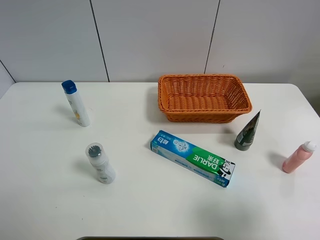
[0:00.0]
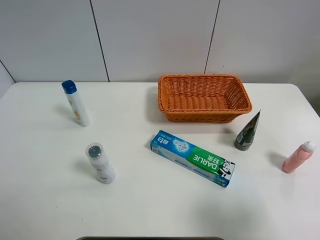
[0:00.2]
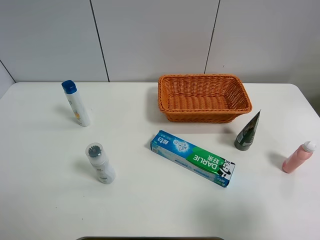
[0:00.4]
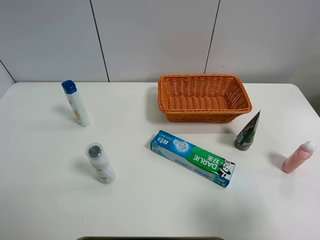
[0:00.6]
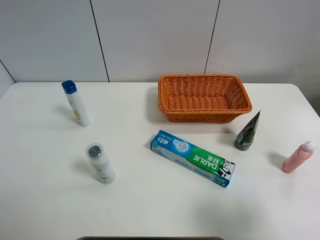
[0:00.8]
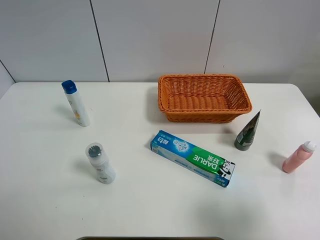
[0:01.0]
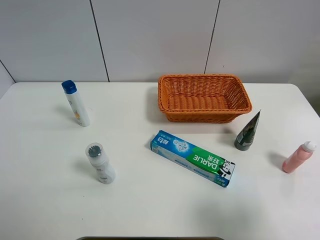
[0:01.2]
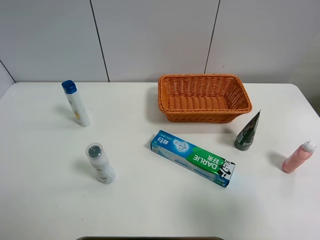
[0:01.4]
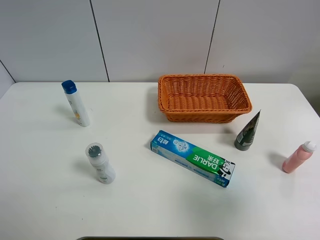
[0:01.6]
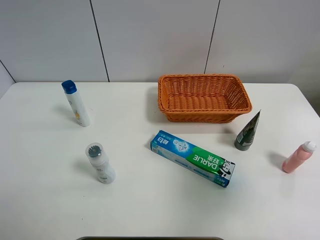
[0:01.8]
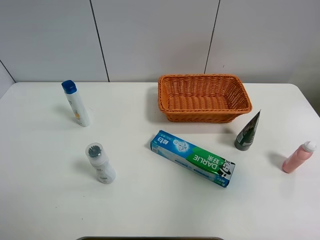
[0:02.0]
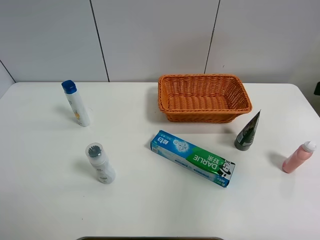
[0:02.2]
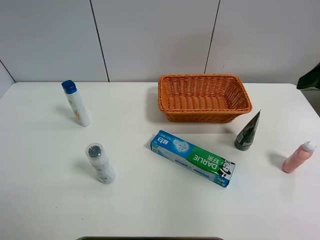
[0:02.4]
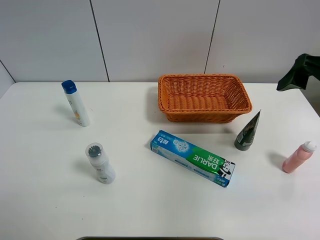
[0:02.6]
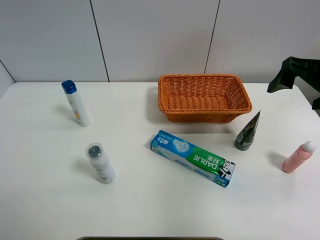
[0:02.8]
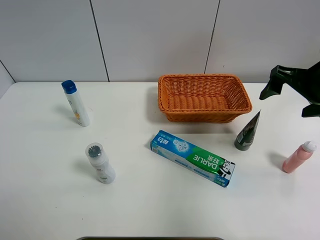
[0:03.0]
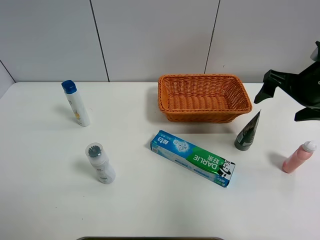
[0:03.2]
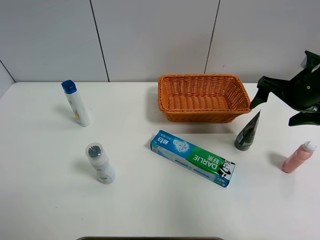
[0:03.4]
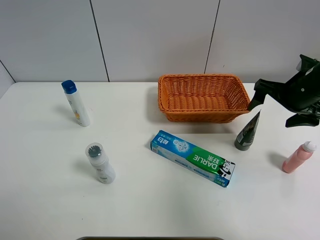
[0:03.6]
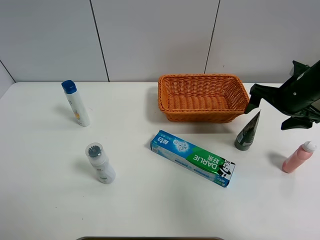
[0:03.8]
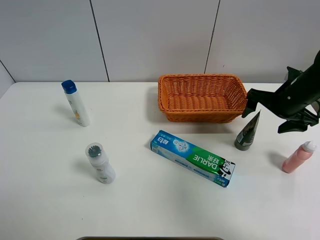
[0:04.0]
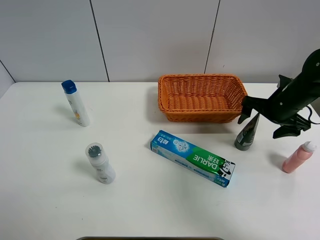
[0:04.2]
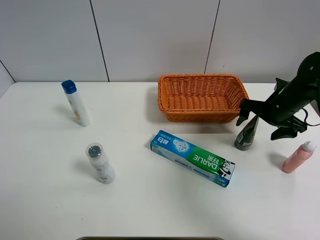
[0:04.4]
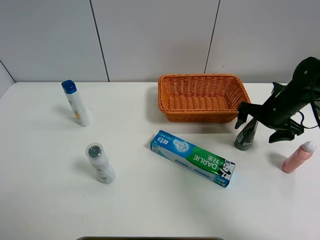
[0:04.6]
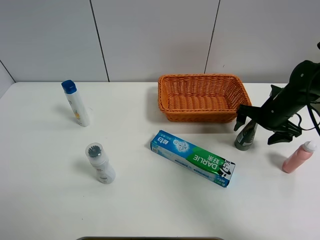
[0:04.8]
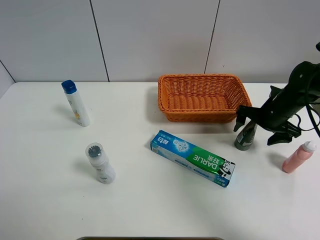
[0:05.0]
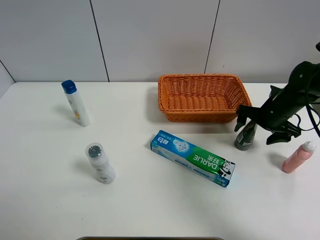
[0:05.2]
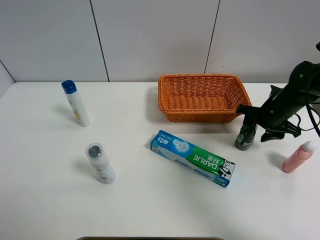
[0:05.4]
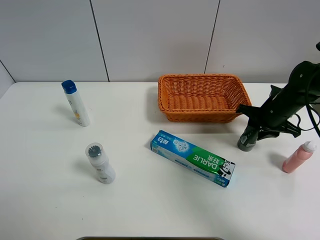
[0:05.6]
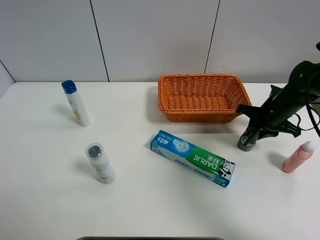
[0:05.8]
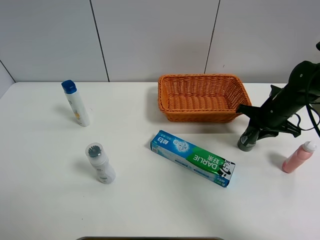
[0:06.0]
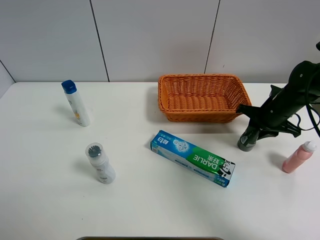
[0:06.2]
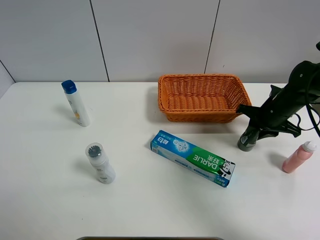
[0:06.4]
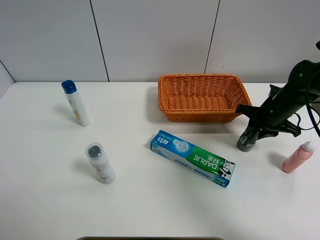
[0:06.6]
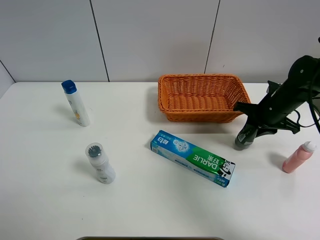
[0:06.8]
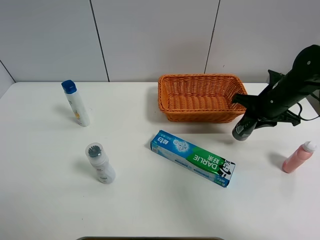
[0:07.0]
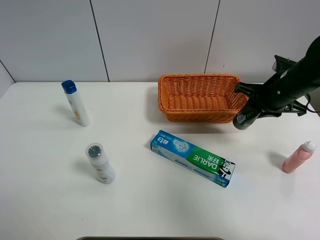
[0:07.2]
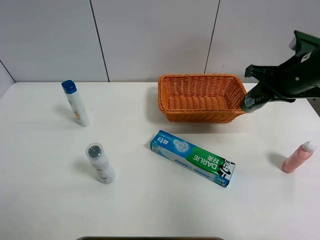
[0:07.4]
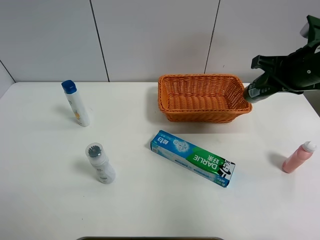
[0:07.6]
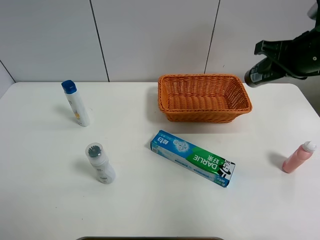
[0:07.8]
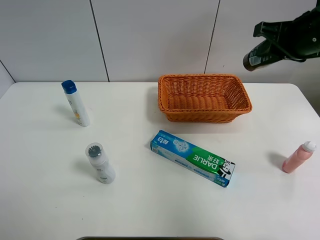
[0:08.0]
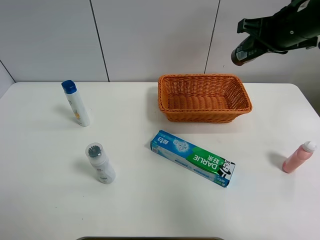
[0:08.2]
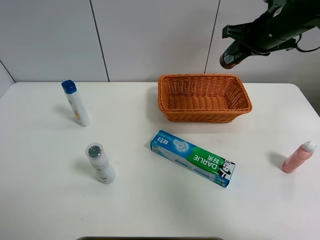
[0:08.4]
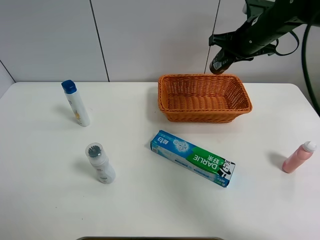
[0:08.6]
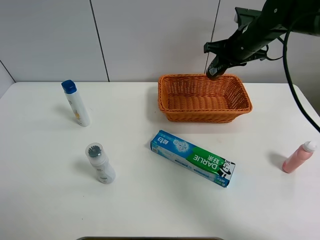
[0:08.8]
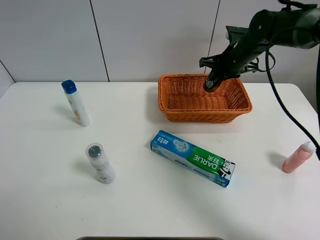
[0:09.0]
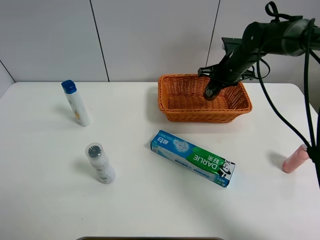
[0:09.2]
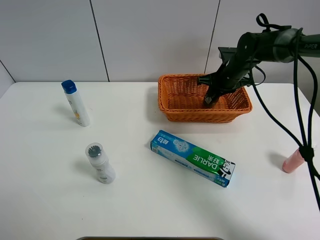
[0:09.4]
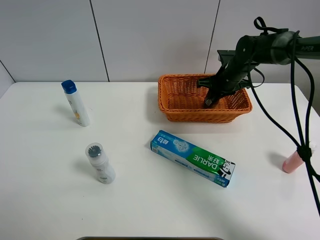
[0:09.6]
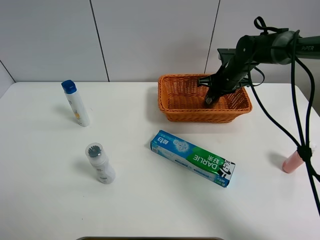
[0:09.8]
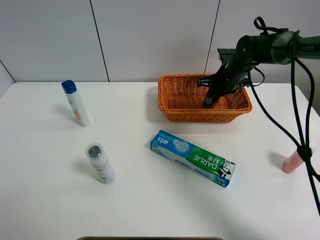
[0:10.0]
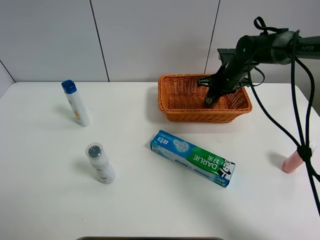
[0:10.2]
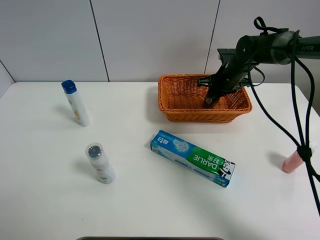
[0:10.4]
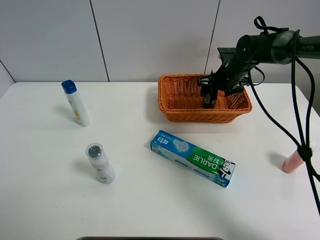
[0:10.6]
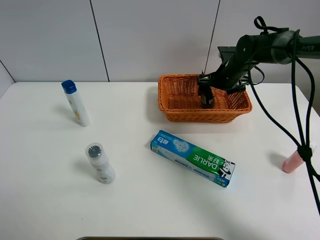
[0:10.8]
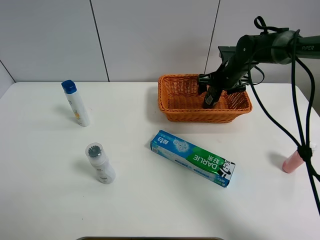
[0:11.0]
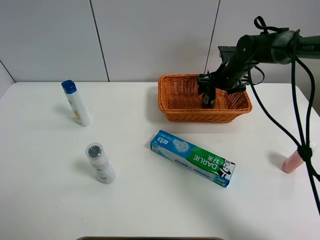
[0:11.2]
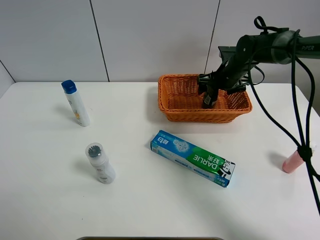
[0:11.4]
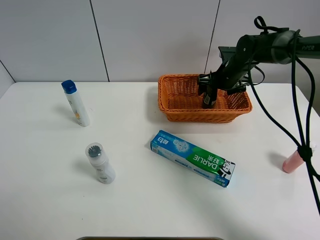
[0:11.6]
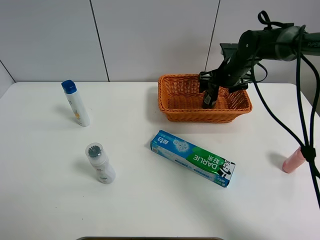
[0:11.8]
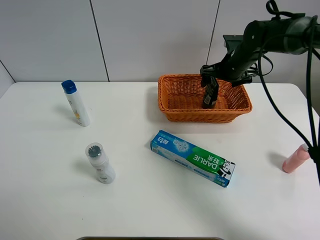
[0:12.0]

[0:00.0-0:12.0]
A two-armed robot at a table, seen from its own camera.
Task of the whole recording: Place the object closest to the toothpaste in the basket.
Step, 0:00.0 to 0:05.6: Grasp the soft facial cleanser with right gripper.
0:00.0 to 0:01.6: The right gripper is displaced upward by approximately 5 cm.
0:01.6 to 0:03.0: The right gripper travels forward by roughly 25 cm.
0:03.0 to 0:04.4: The right gripper is displaced downward and forward by approximately 15 cm.
0:04.4 to 0:06.0: The right gripper closes up.
0:06.0 to 0:07.6: The right gripper heads upward, covering some 15 cm.
0:07.6 to 0:09.0: The right gripper moves forward and downward, approximately 20 cm.
0:09.0 to 0:10.4: The right gripper travels downward by about 5 cm.
0:10.4 to 0:12.0: The right gripper opens up.

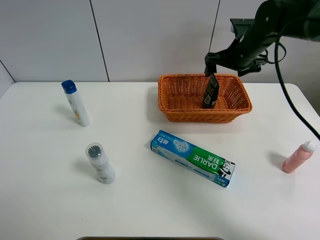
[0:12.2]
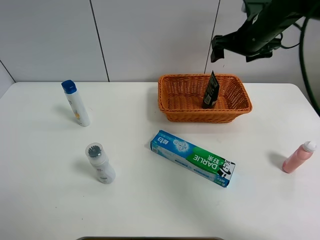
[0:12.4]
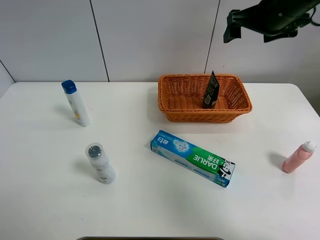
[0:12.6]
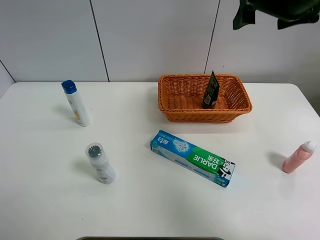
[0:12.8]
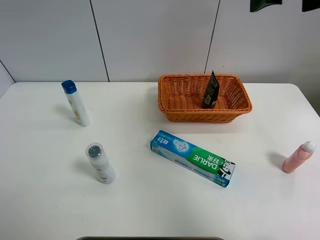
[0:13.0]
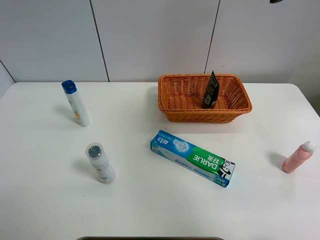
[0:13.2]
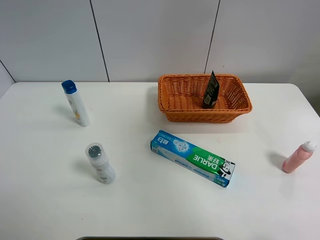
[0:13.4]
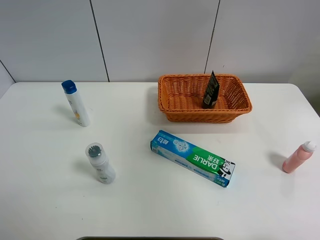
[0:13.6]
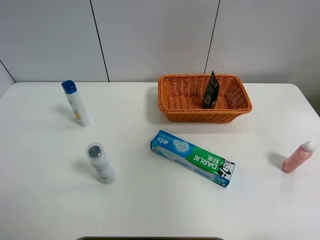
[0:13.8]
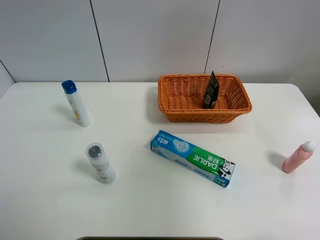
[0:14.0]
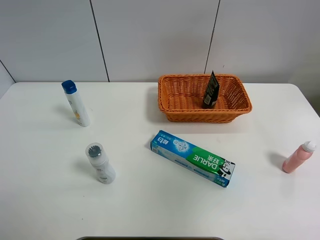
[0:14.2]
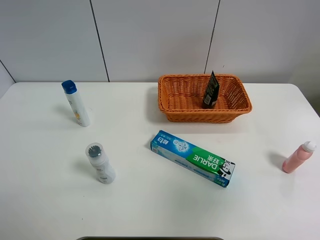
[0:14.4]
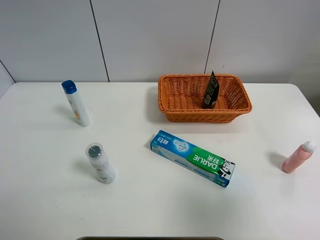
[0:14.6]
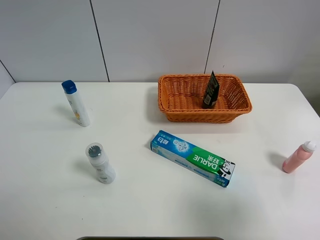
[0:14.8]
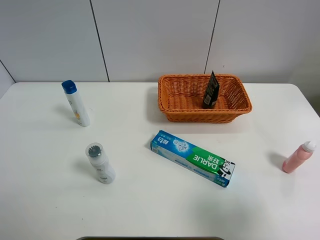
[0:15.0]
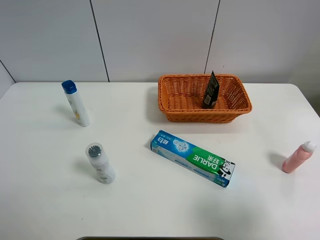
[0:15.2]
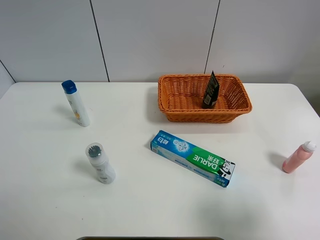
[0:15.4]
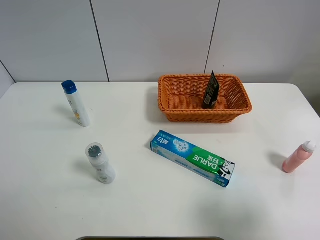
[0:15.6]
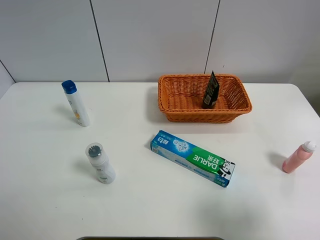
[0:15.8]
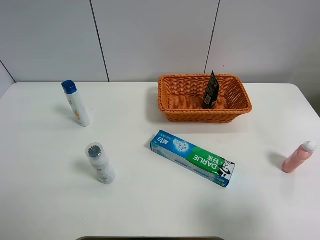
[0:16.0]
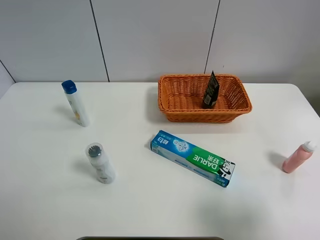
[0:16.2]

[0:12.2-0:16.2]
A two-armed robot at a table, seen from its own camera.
Task of the whole recording: Place the object closest to the toothpaste in the basket.
0:12.2 to 0:13.6: The right gripper goes about 35 cm backward and upward.
0:13.6 to 0:14.8: The right gripper goes roughly 25 cm downward and backward.

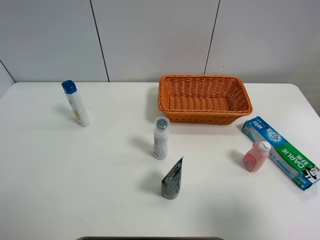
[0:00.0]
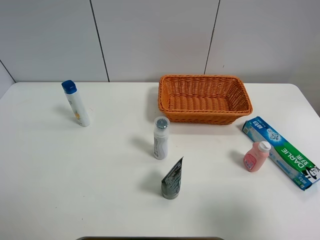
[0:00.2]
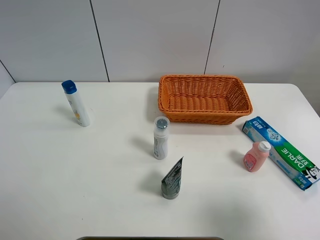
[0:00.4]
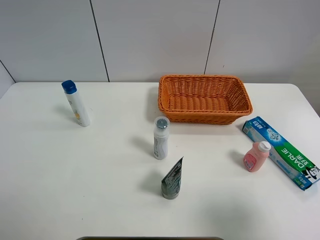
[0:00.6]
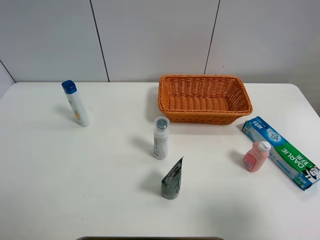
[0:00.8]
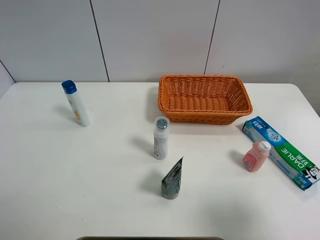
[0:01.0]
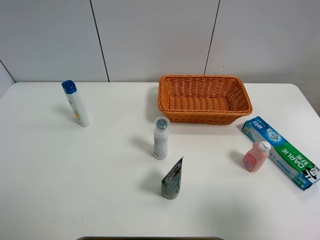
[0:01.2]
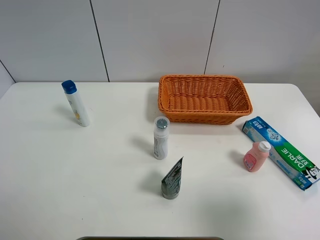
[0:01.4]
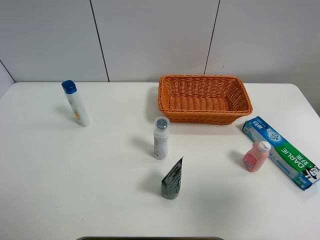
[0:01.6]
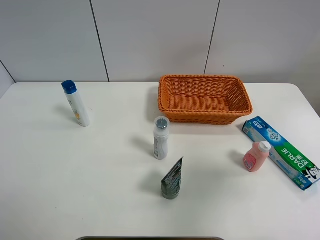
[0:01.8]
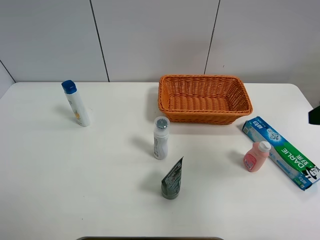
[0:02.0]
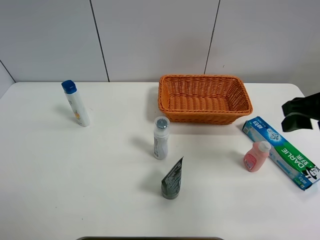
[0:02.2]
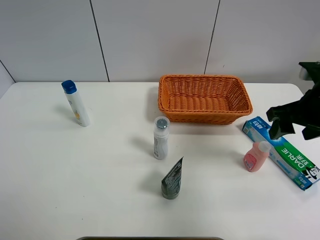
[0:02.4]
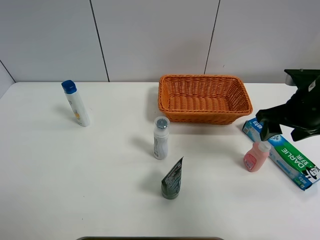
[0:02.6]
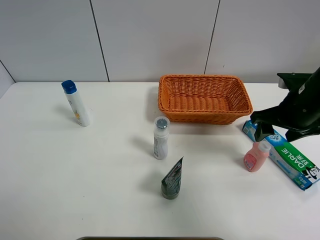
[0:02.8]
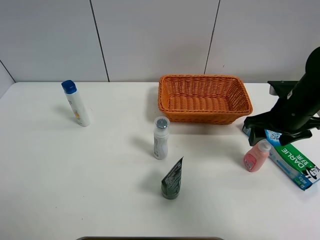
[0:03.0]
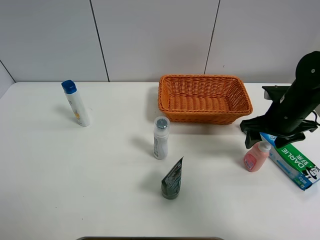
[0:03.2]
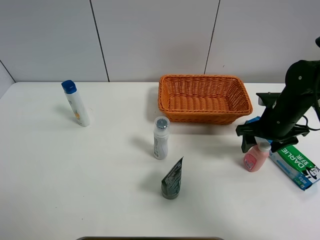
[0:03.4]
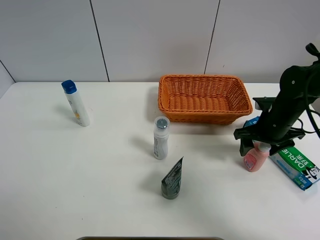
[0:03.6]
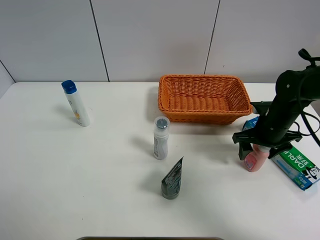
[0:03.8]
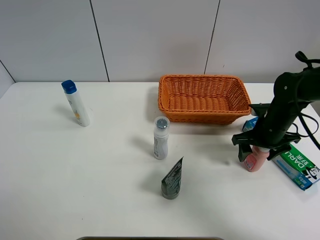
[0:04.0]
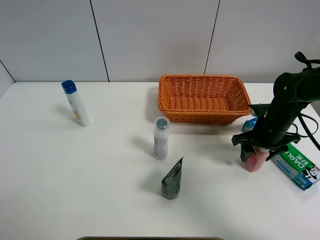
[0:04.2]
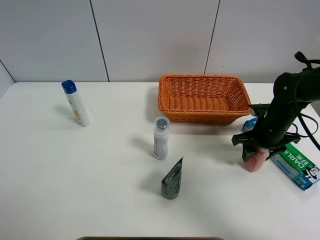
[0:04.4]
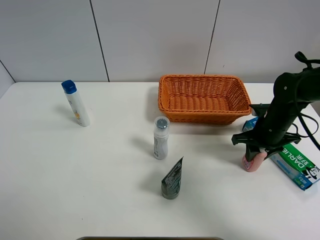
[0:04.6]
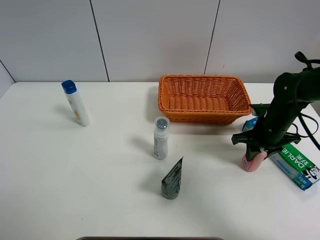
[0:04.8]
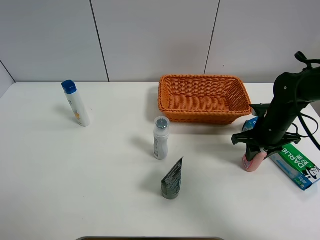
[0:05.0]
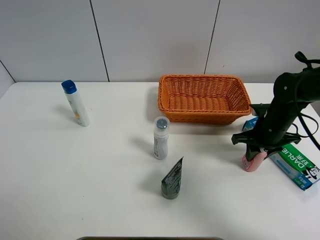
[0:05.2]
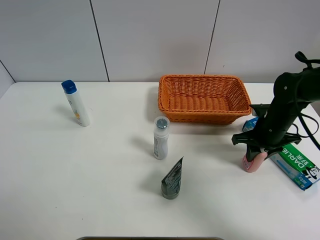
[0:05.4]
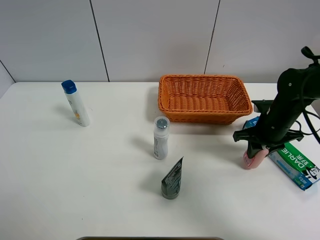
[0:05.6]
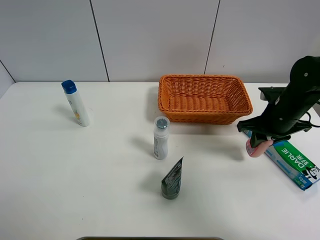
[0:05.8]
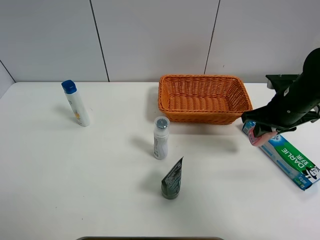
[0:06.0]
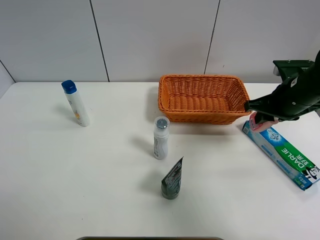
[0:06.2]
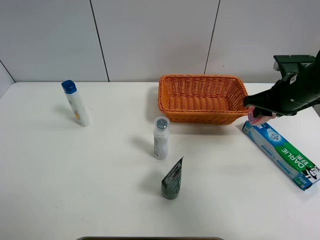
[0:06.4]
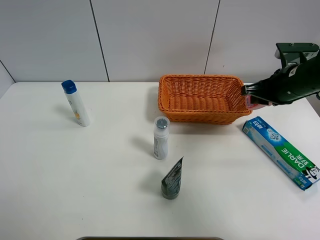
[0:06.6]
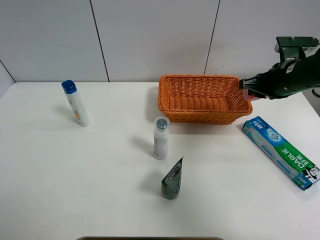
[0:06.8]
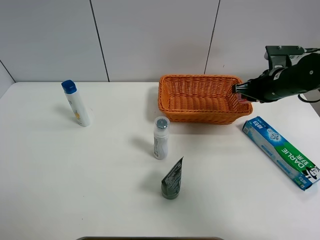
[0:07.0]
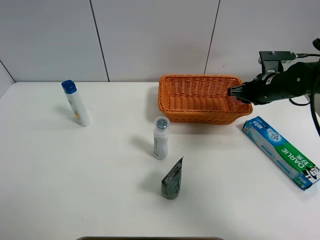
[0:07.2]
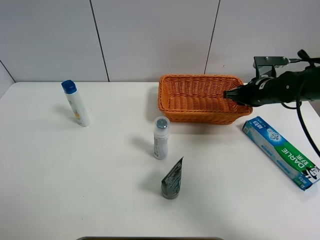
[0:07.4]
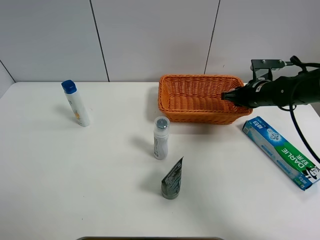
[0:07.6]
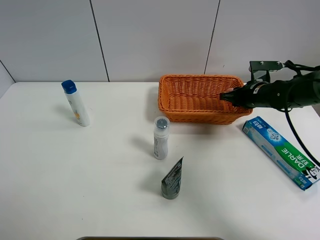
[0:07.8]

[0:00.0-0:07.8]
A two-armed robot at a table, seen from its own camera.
Task of the whole recording: Place the object closest to the toothpaste in the basket.
Step, 0:00.0 to 0:04.8: Grasp the pink laundry detergent with right gripper.
0:00.0 to 0:01.6: The right gripper changes place by roughly 5 cm.
0:01.6 to 0:03.2: The right gripper is displaced forward and downward by approximately 30 cm.
0:03.2 to 0:04.6: The right gripper travels downward by some 5 cm, and closes.
0:04.6 to 0:06.2: The right gripper shifts some 10 cm upward.
0:06.2 to 0:07.8: The right gripper moves forward and downward, roughly 10 cm.
